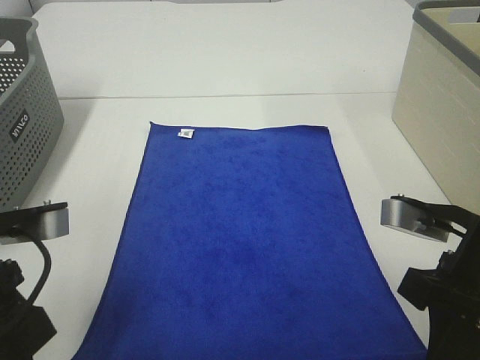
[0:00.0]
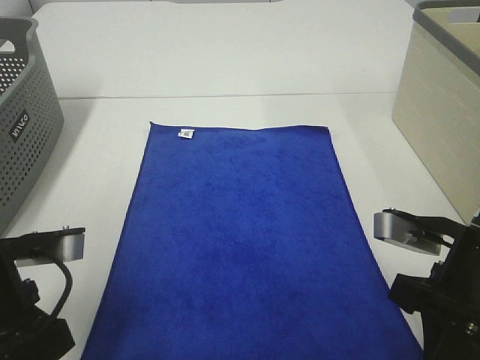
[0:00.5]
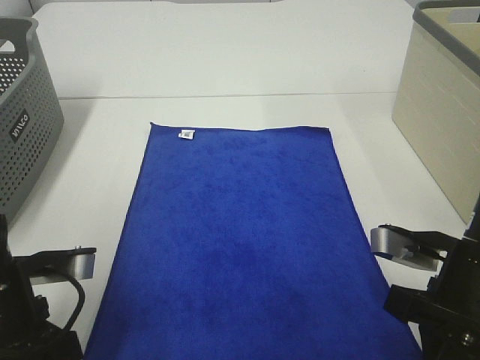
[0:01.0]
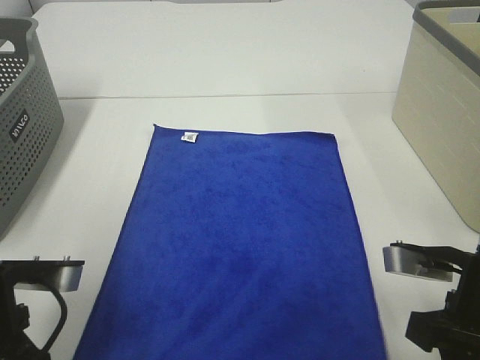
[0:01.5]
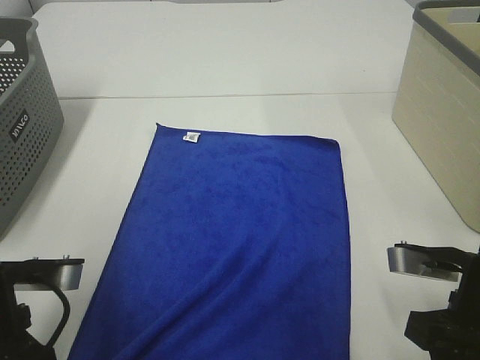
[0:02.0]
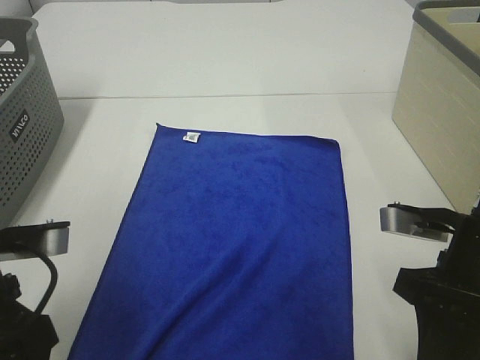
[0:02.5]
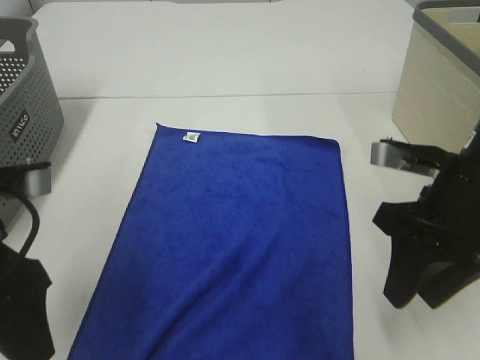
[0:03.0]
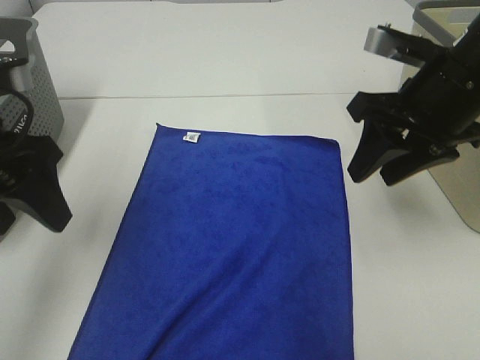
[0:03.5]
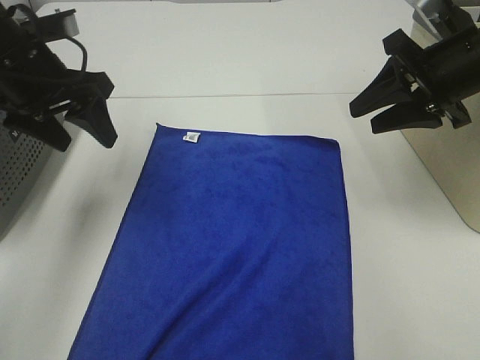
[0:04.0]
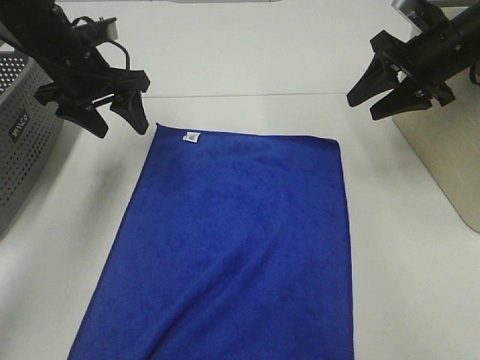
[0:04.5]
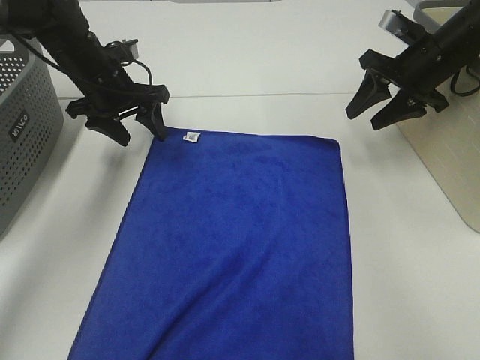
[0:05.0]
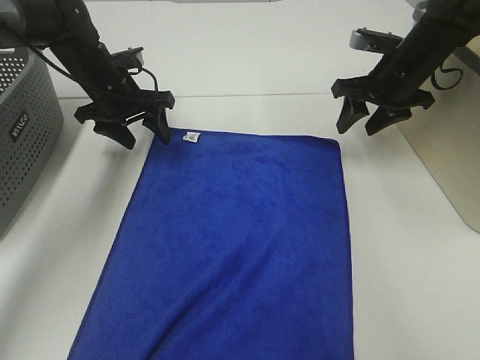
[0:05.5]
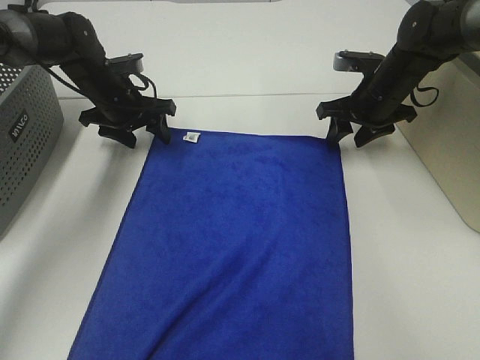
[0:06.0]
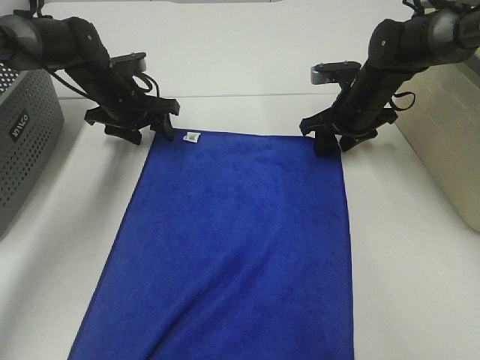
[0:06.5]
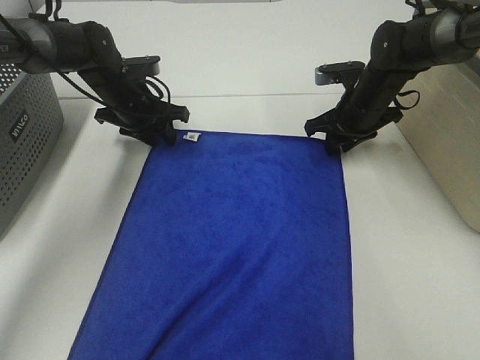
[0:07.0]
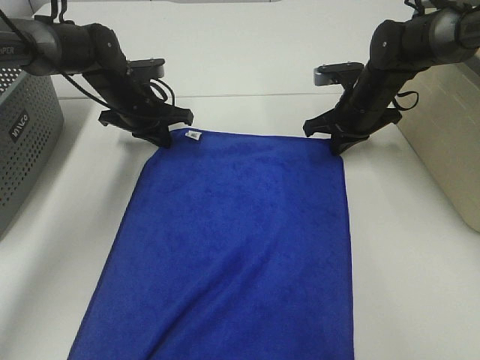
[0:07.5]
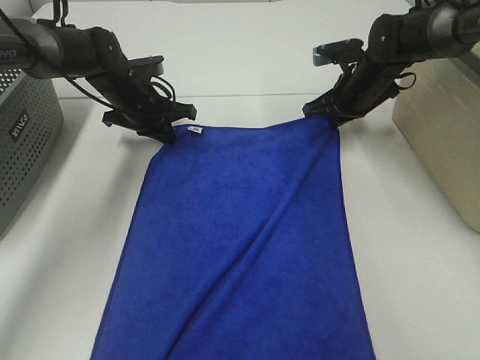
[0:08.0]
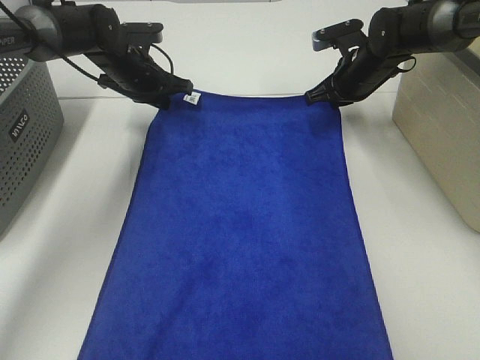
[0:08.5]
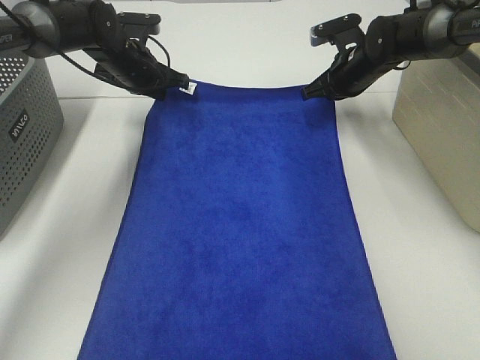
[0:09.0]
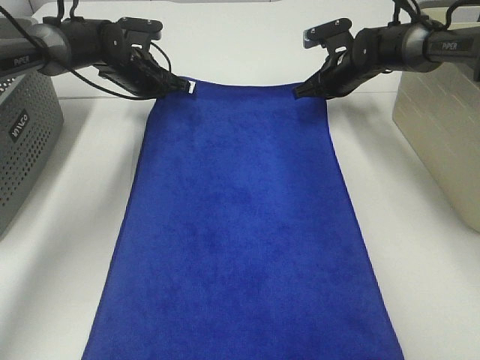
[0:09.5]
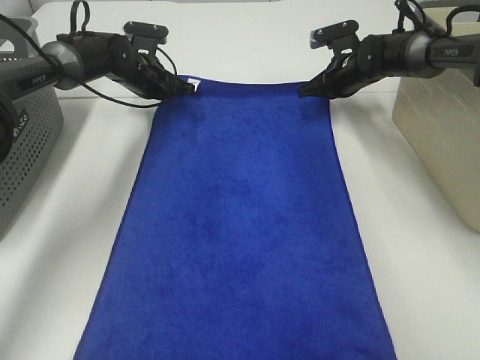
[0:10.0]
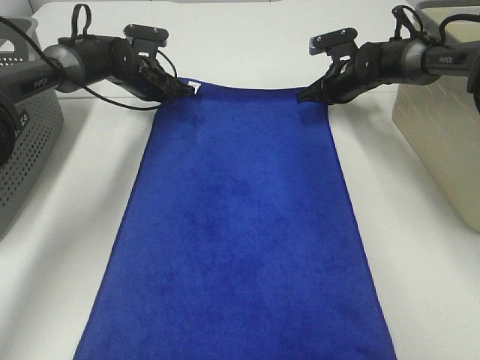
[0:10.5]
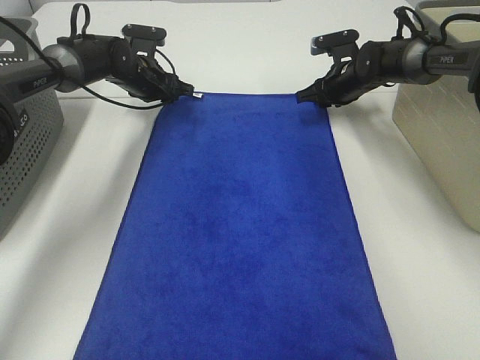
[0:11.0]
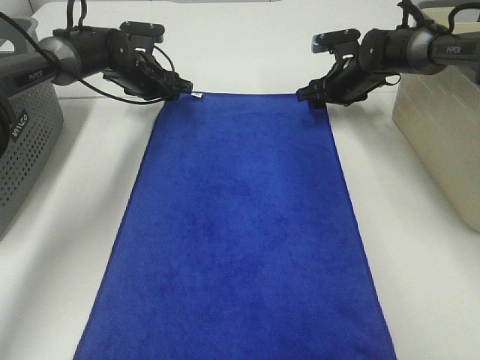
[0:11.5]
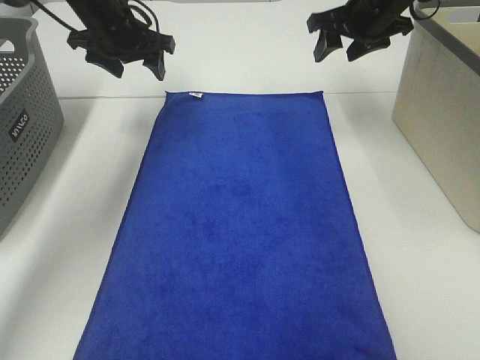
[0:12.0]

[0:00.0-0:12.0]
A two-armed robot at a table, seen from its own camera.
Task of the whole recording: Remove the towel and place it.
Step, 0.0 to 4.5 s: Left hand:adjust the blue towel.
Step, 0.0 to 4.5 s: Right hand:adjust the blue towel.
0.0 to 2.0 s: The right gripper opens its fingers, while the left gripper opens.
2.0 to 4.0 s: Both grippers travel together forward and upward, roughly 20 cm.
4.0 to 6.0 s: Both grippers move forward and downward, about 20 cm.
6.0 to 8.0 s: The right gripper closes its fingers. The left gripper closes its fingers.
8.0 to 10.0 s: Both grippers travel together forward, some 5 cm.
10.0 to 12.0 s: The right gripper heads upward, covering about 15 cm, and opens up. Meanwhile the left gripper travels upward and backward by roughly 15 cm, and opens.

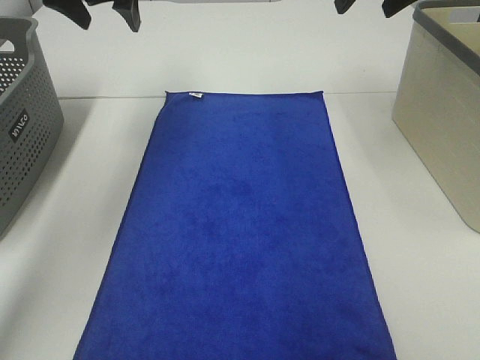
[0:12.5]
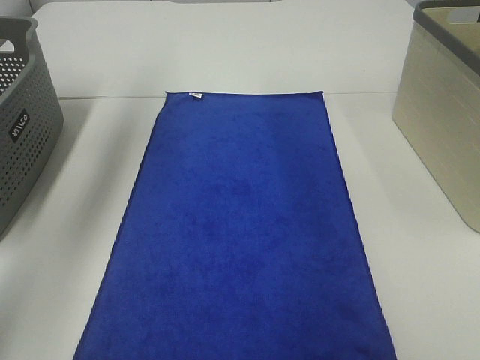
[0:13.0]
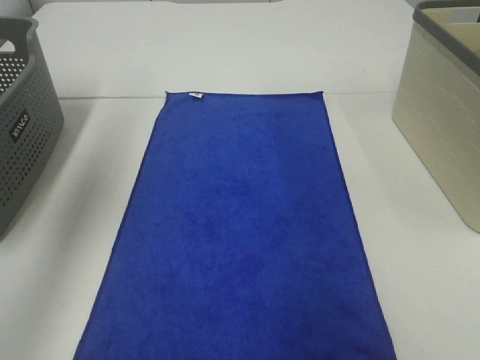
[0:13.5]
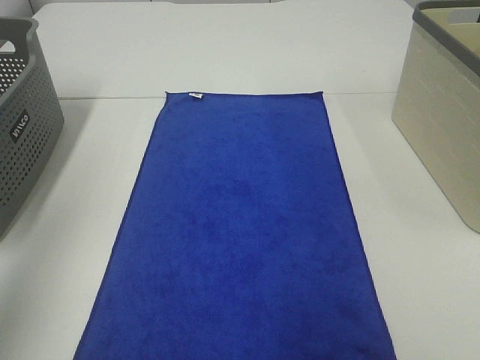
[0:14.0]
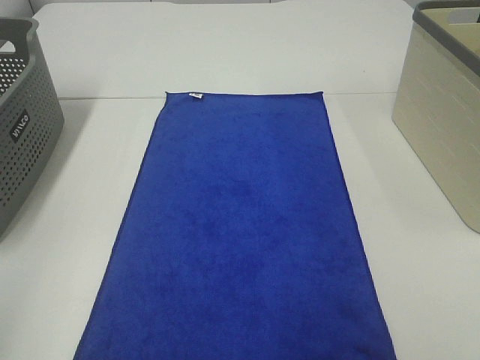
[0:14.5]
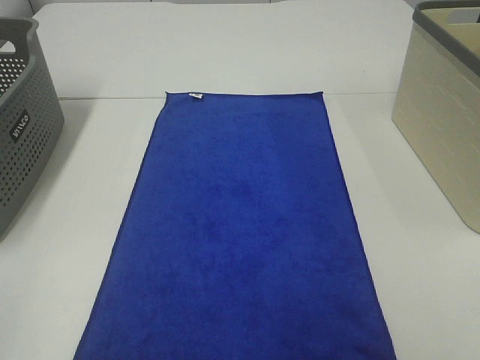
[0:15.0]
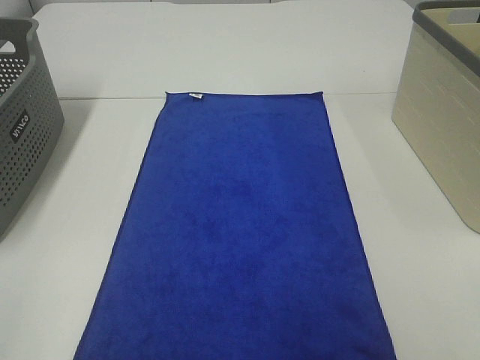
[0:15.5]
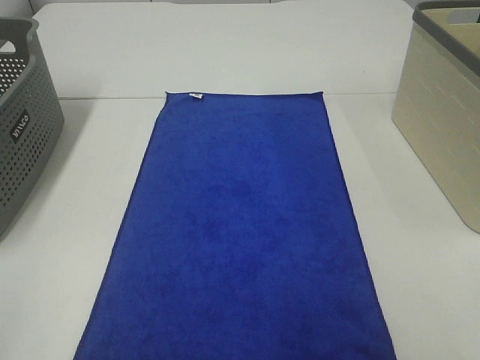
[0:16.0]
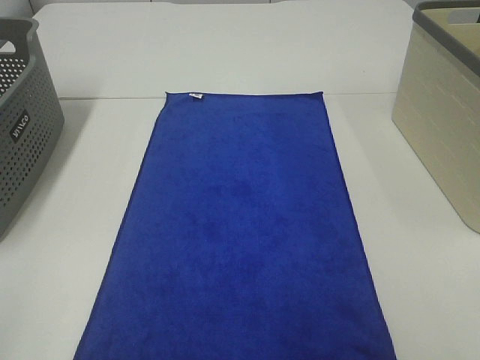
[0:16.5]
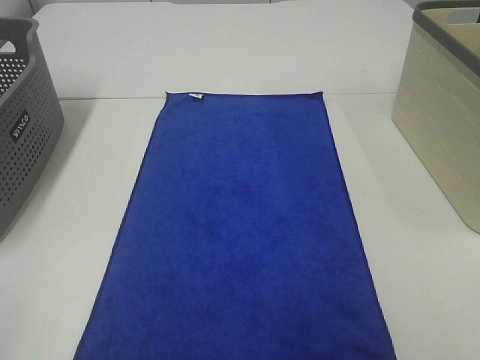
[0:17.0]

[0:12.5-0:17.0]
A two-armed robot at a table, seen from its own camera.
Task of the whole recording: Remove the towel and place it.
12.5 to 14.5 s: Both grippers move backward, roughly 40 cm.

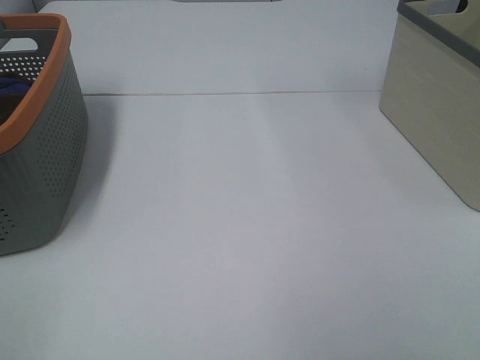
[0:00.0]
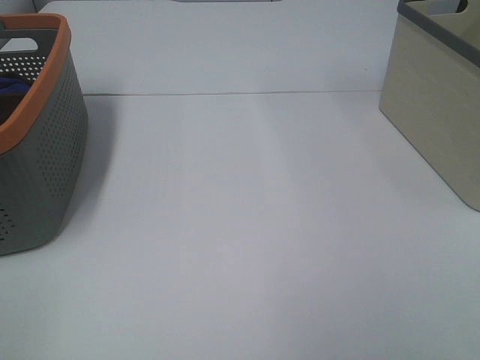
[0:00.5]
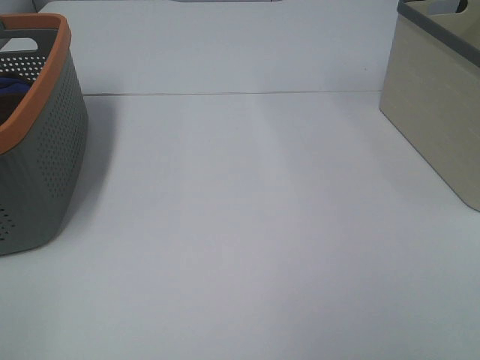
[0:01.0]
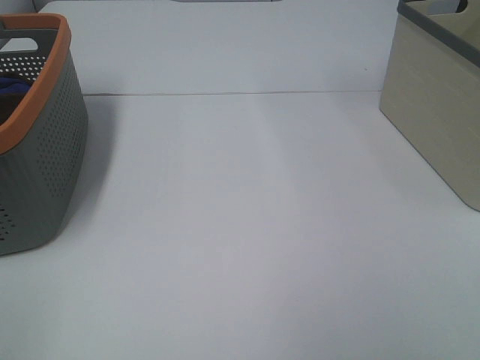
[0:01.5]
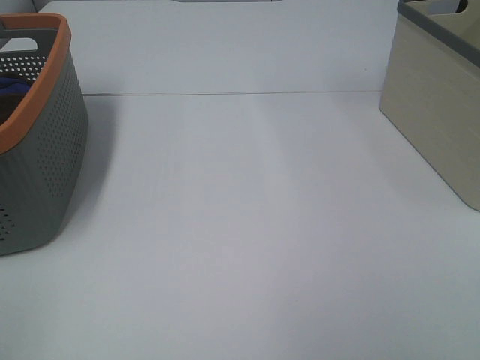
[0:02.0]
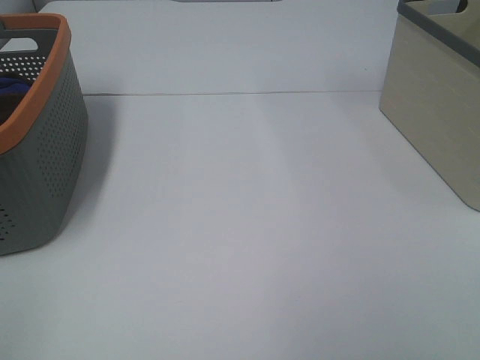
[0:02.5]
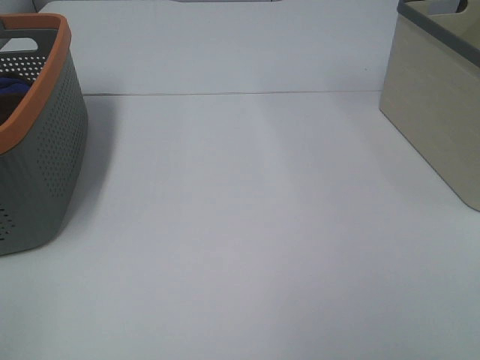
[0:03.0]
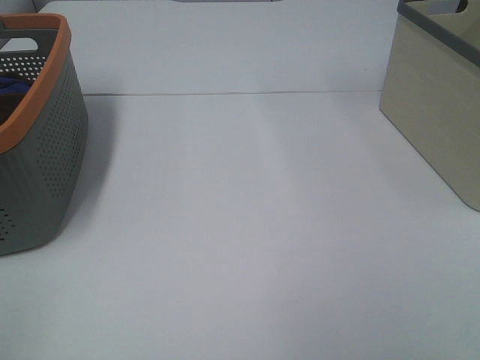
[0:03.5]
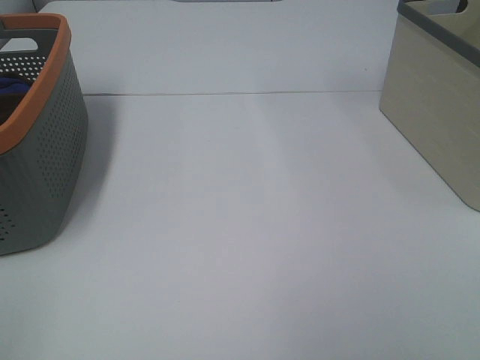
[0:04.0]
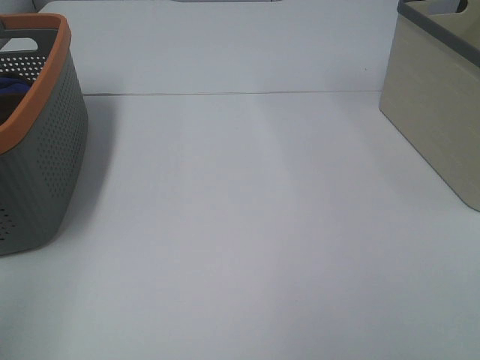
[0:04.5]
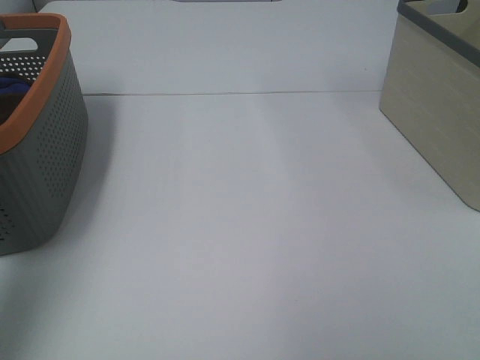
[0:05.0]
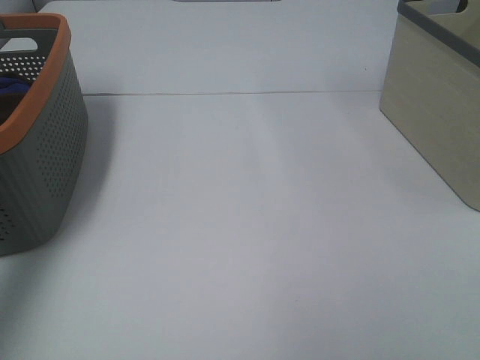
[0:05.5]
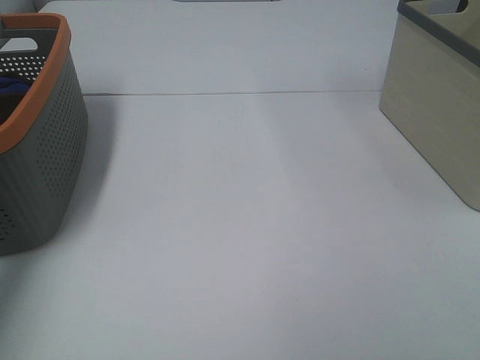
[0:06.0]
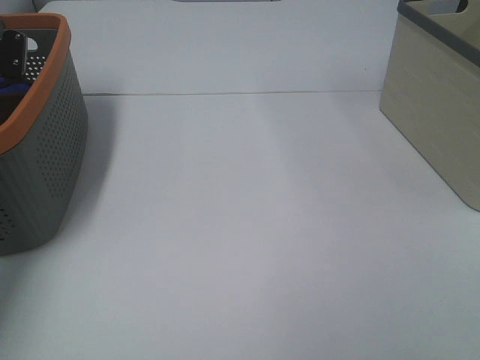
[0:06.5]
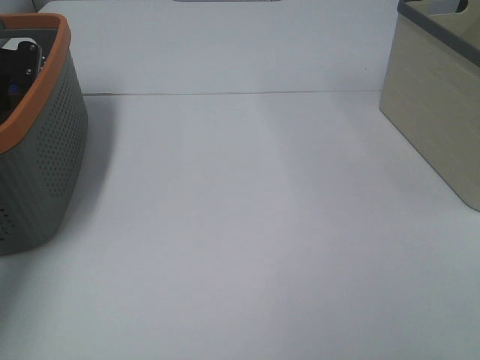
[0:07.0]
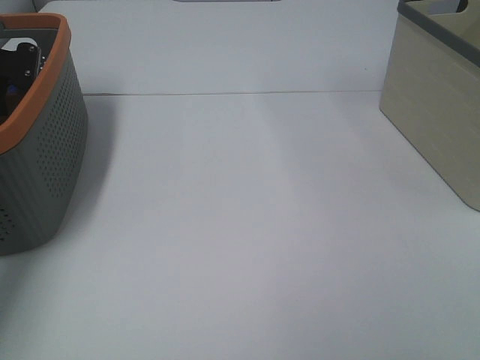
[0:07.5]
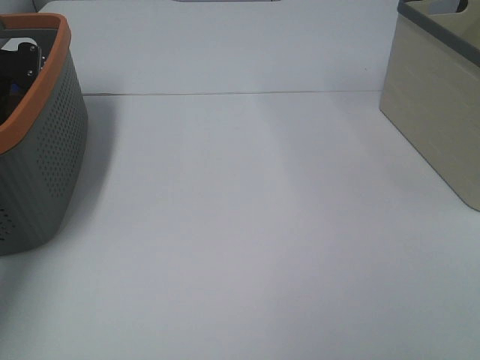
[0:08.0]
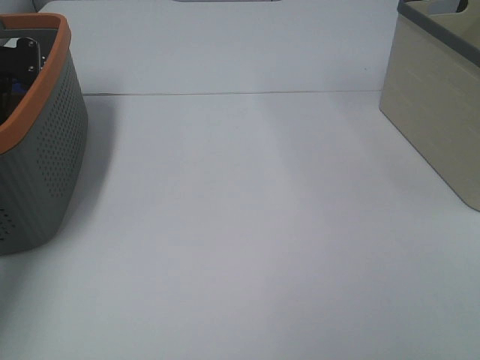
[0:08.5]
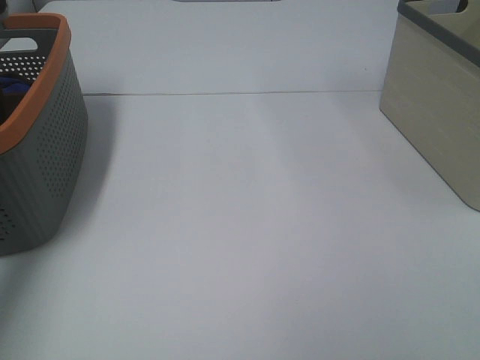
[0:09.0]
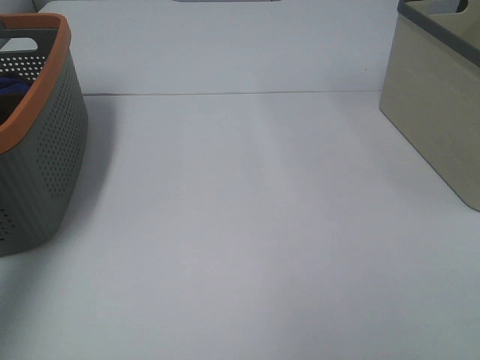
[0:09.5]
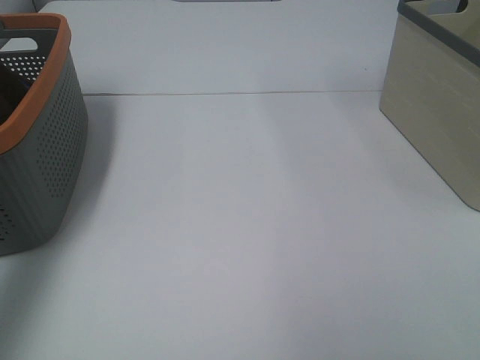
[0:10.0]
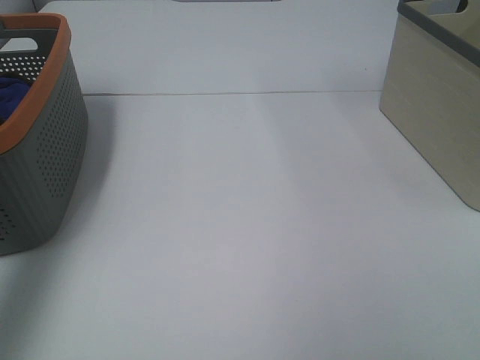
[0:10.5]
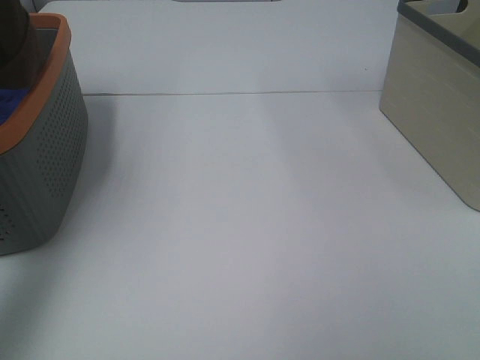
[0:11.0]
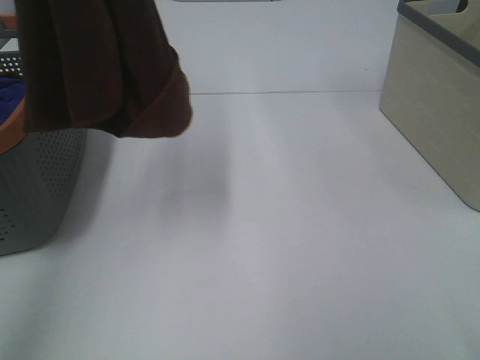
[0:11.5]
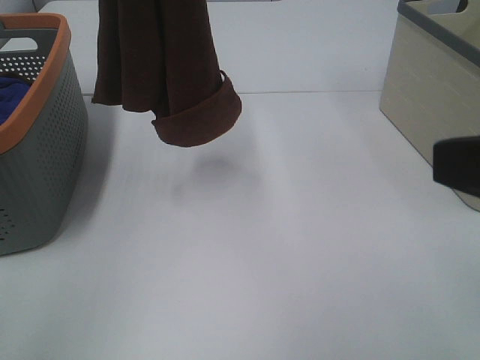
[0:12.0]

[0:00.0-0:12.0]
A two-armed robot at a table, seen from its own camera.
Task of the whole recording: Remove the towel and place it.
0.0 to 4.0 s: Neither gripper changes place.
4.0 to 6.0 s: The left gripper is displaced forward by roughly 40 cm.
8.0 to 10.0 s: The left gripper travels upward and backward by approximately 30 cm.
10.0 to 12.0 s: The right gripper shifts approximately 10 cm forward; the left gripper heads to the right, covering roughly 20 cm.
